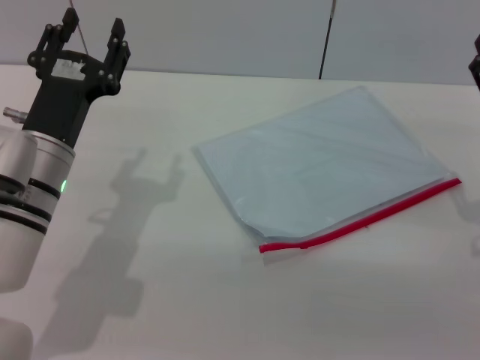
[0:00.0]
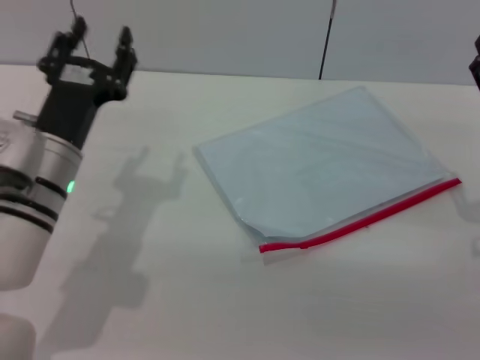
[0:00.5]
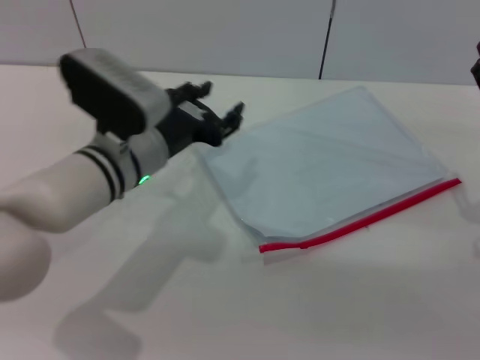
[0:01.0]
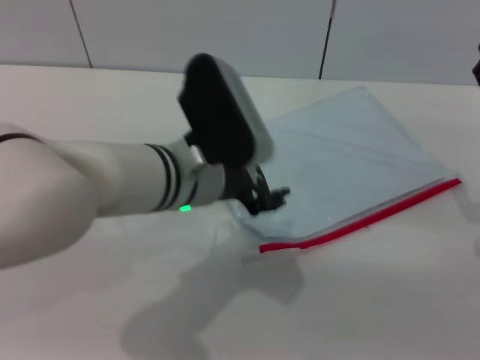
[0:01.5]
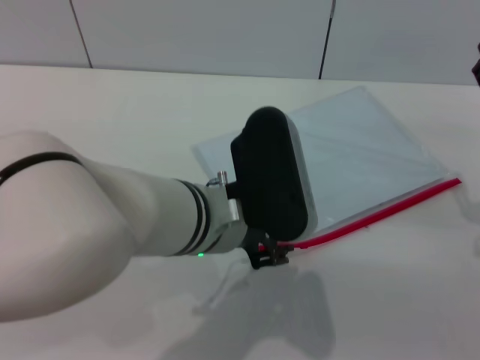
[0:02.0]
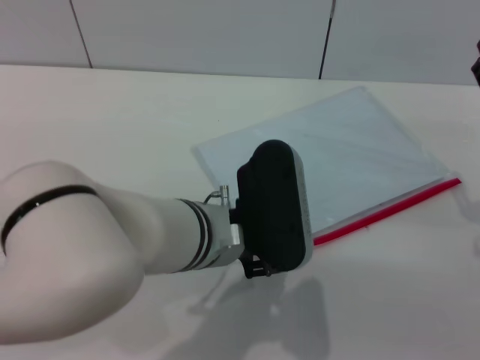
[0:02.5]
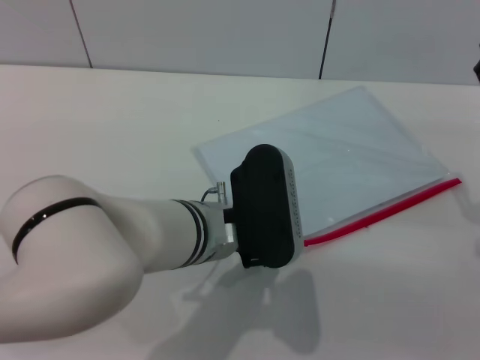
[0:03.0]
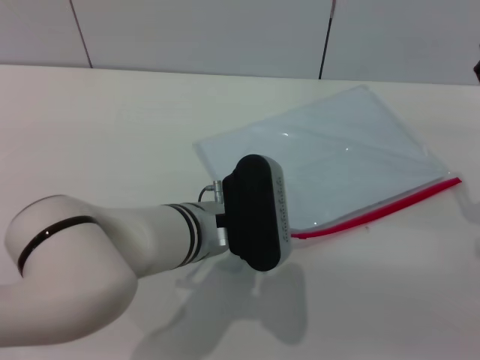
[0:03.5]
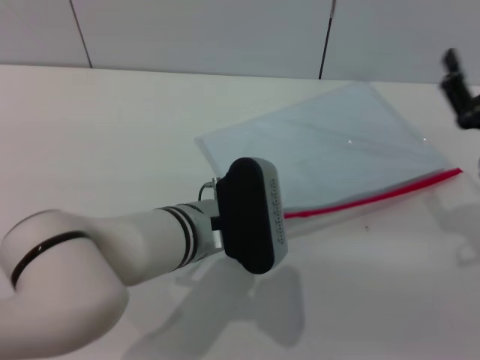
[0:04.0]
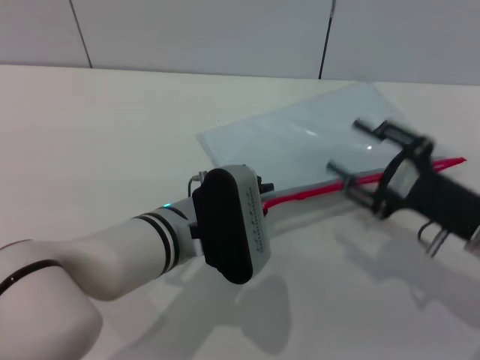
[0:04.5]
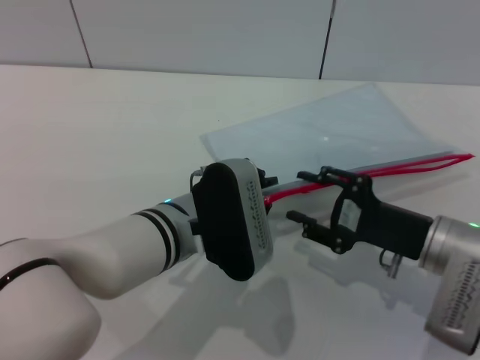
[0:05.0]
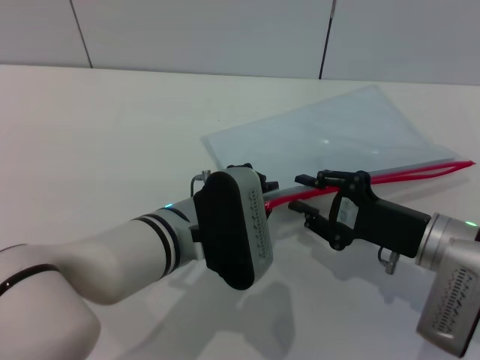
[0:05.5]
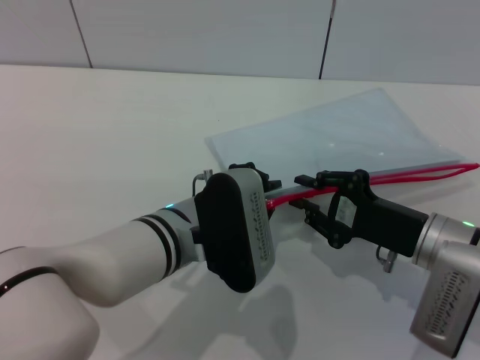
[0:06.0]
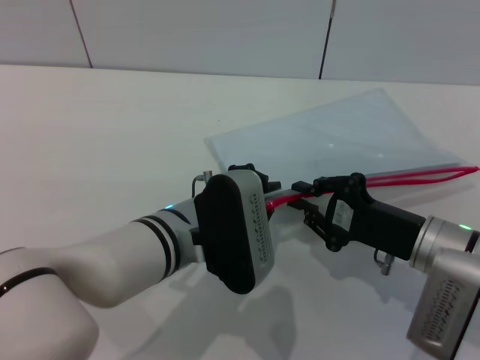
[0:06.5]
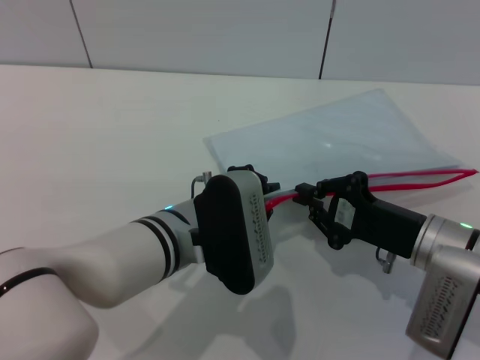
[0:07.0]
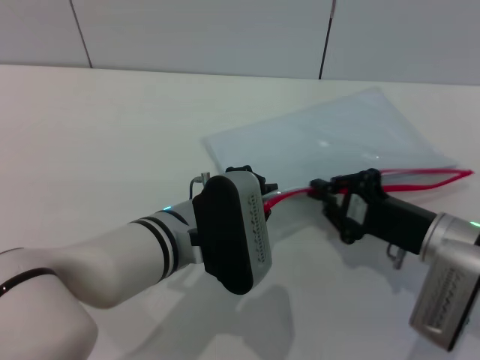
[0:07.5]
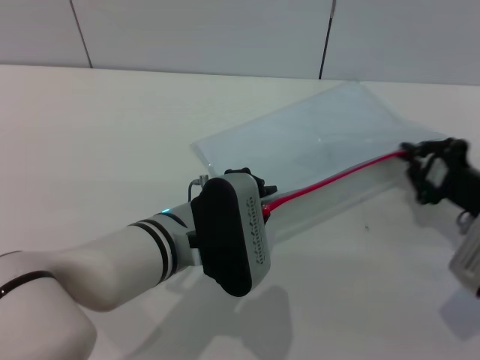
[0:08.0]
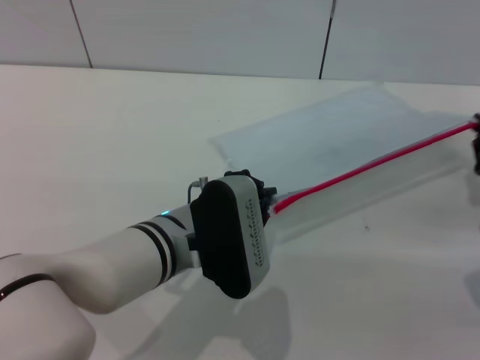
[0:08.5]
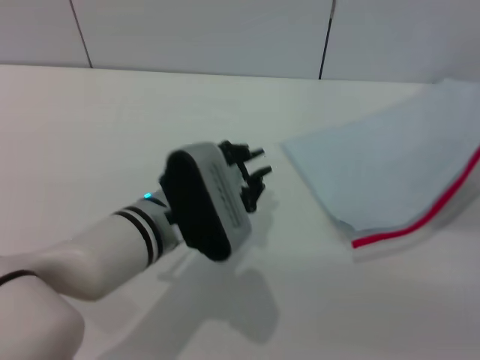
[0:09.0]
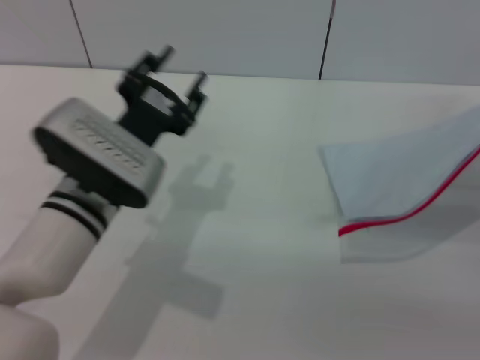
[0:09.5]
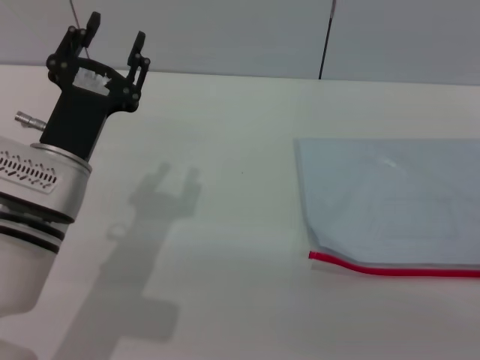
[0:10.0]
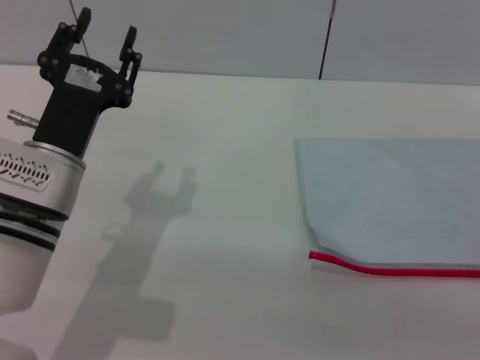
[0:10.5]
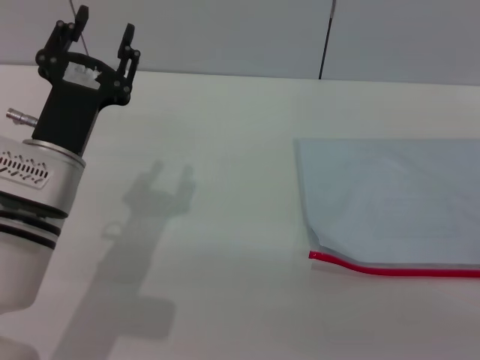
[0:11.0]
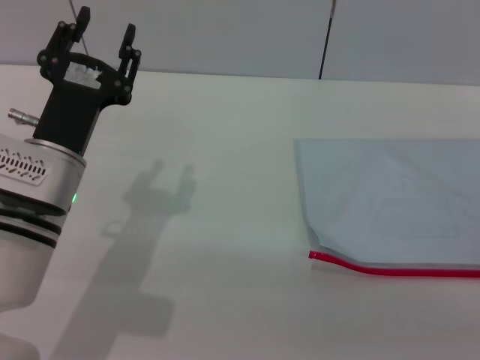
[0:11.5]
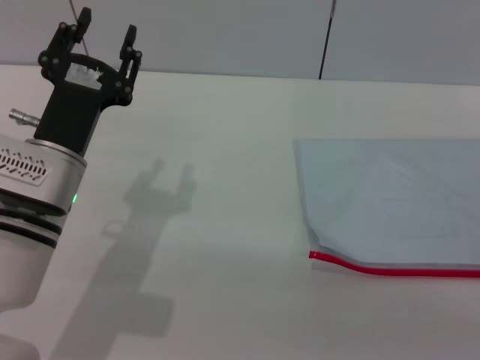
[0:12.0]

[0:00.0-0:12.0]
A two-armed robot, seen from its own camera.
Step, 0:00.0 to 0:04.0: Pick up the transparent plastic bag with the left gripper.
Step, 0:05.0 to 0:09.5: Pulling up the zipper on the transparent plastic bag with the right gripper to close it.
Step, 0:10.5 to 0:11.0: Place the transparent plastic bag.
0:00.0 to 0:02.0: The left gripper moves to the right and upward, roughly 15 cm.
0:02.0 to 0:04.0: The left gripper shifts about 5 cm downward, and closes its fingers.
0:04.0 to 0:06.0: The right gripper shifts roughly 5 cm to the left, and closes its fingers.
0:06.0 to 0:08.0: The right gripper is displaced to the right by roughly 10 cm.
0:08.0 to 0:10.0: The right gripper travels backward and upward by some 10 cm, and opens its fingers. Meanwhile the left gripper moves to the left, some 10 cm, and opens its fingers.
0:10.0 to 0:12.0: The two grippers keep their place.

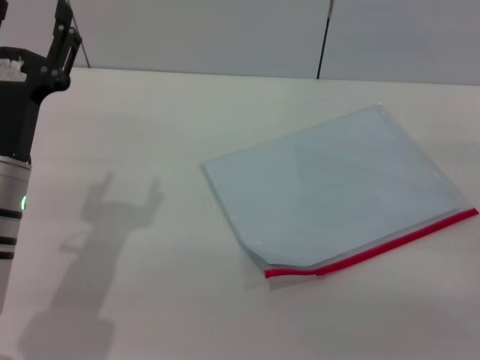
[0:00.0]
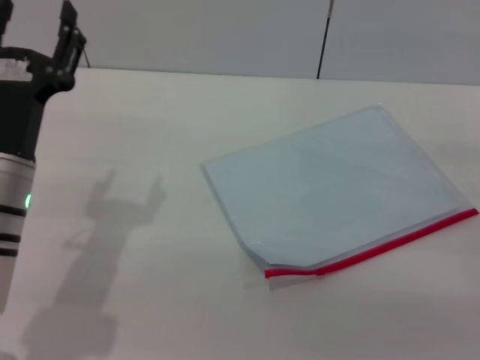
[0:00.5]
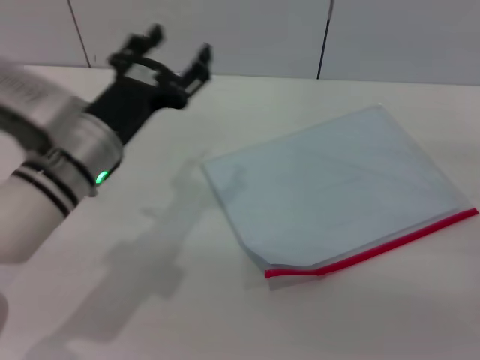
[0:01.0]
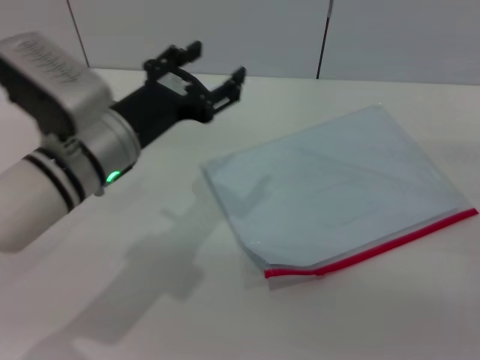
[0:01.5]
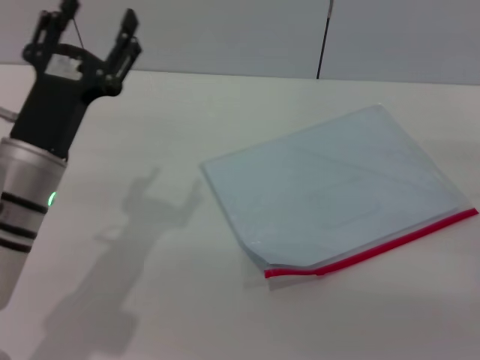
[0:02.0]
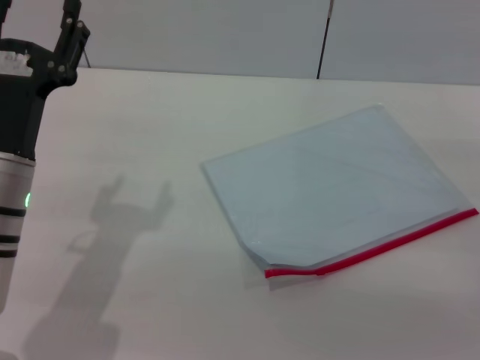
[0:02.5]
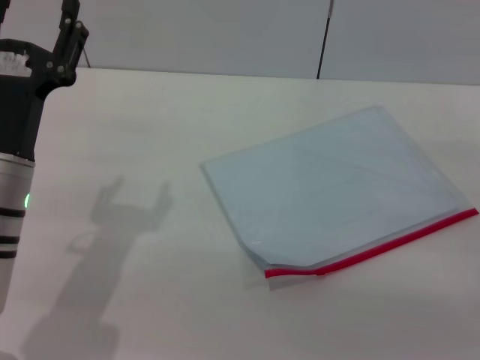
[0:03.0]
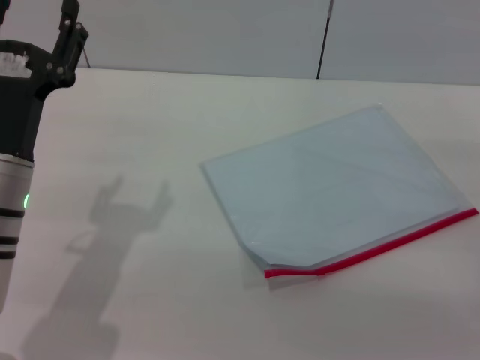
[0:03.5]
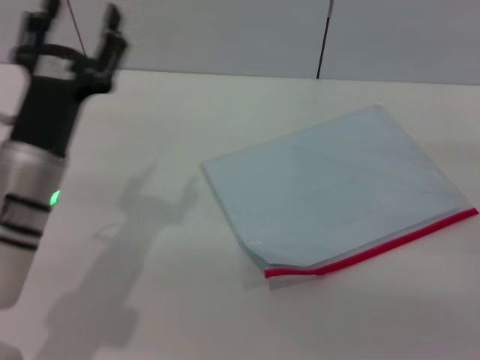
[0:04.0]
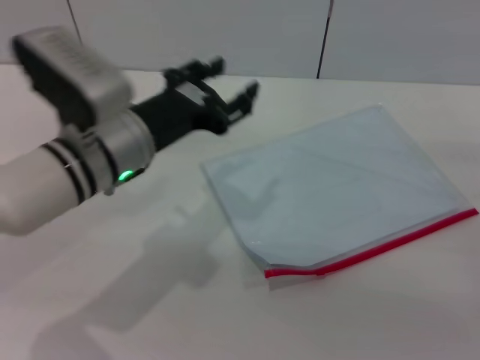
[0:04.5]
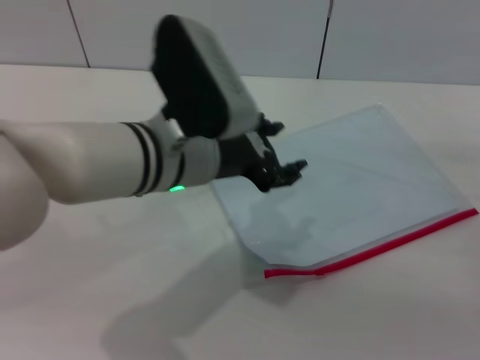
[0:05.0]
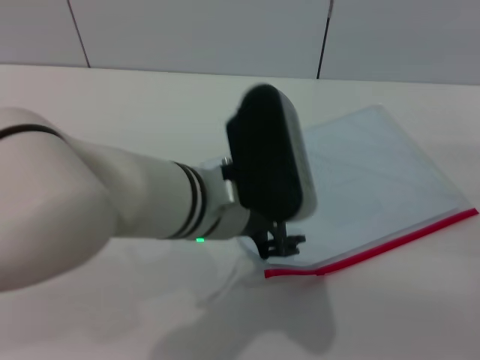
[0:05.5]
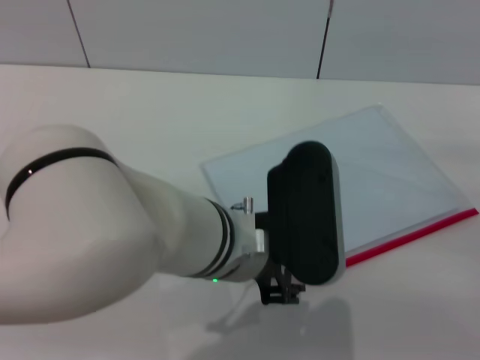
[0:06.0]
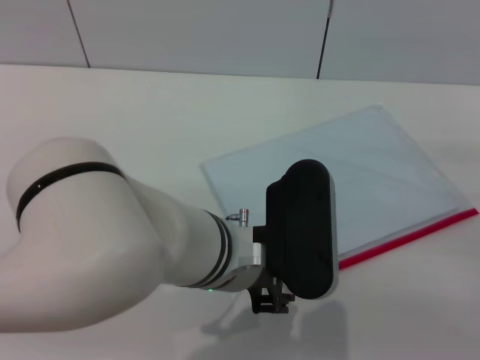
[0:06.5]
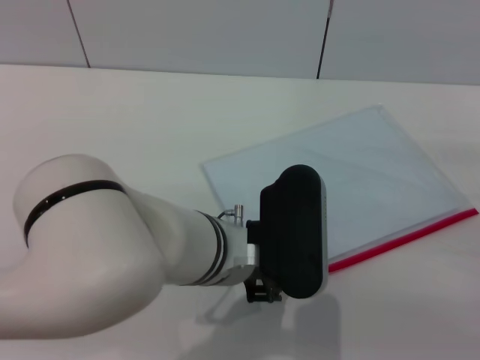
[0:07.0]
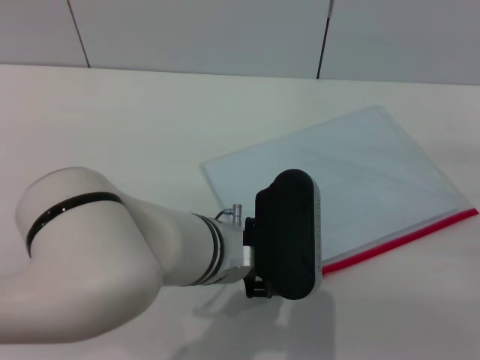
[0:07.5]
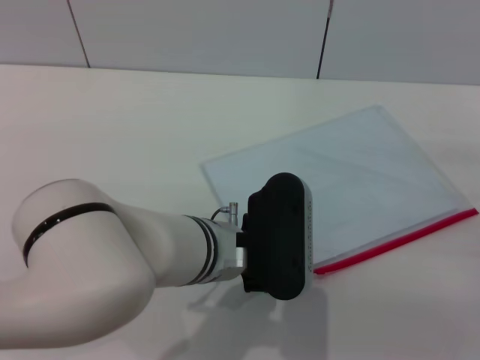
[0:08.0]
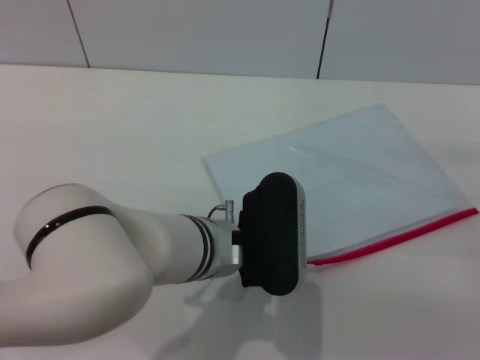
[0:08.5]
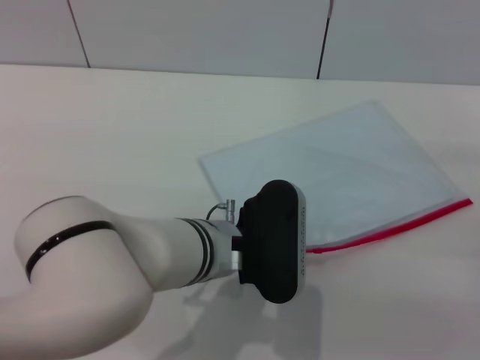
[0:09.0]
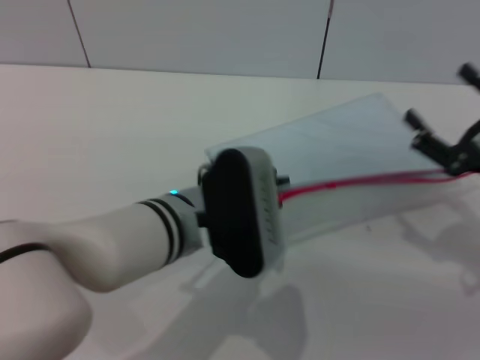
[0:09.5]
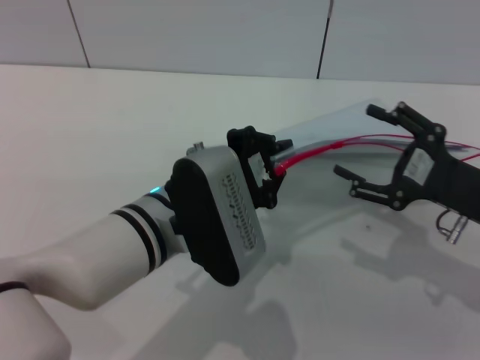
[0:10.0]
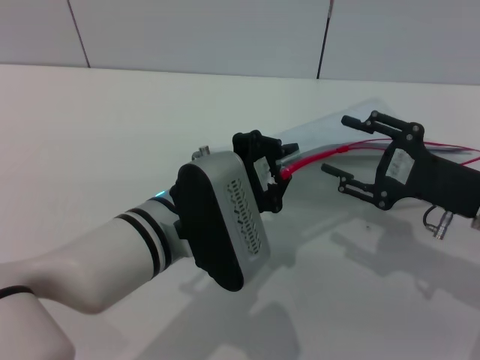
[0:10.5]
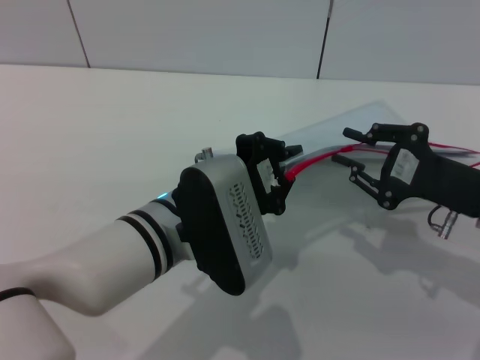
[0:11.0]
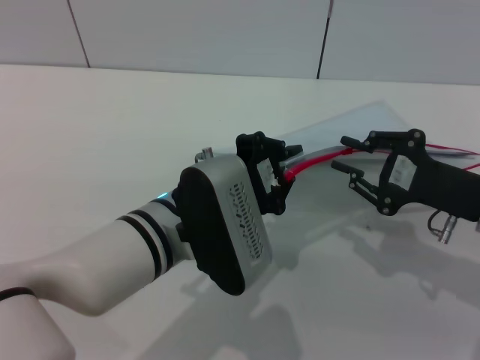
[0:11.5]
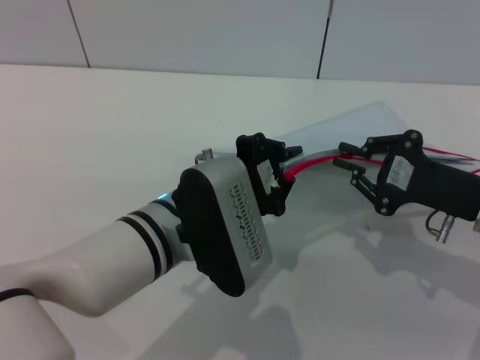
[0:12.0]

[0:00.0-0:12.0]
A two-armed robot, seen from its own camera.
Step, 0:00.0 to 0:09.5: Pick up the transparent plastic bag with the left gripper.
0:02.0 to 0:04.0: The grippers make only small movements.
0:04.0 to 0:06.0: The left gripper goes roughly 15 cm to the right.
0:06.0 to 0:08.0: The left gripper shifts by some 5 cm.
0:08.0 to 0:10.0: The left gripper closes; the right gripper shifts roughly 5 cm to the left.
0:10.0 to 0:12.0: The right gripper closes.

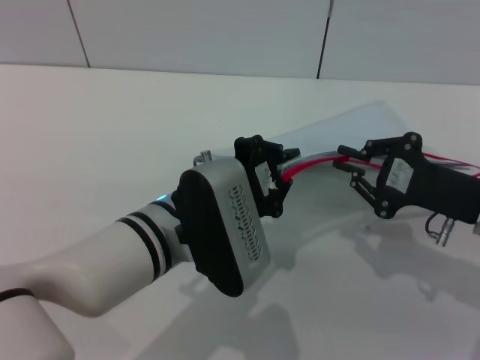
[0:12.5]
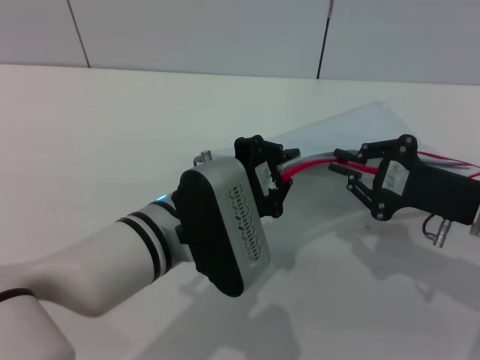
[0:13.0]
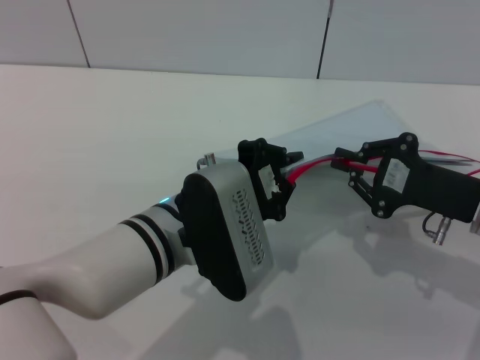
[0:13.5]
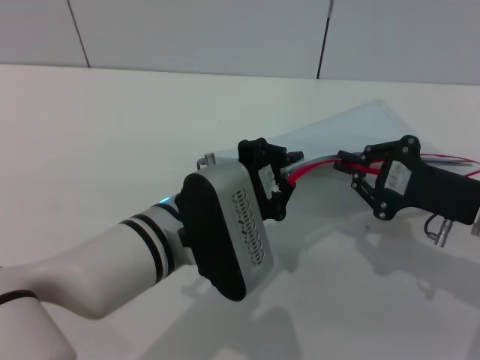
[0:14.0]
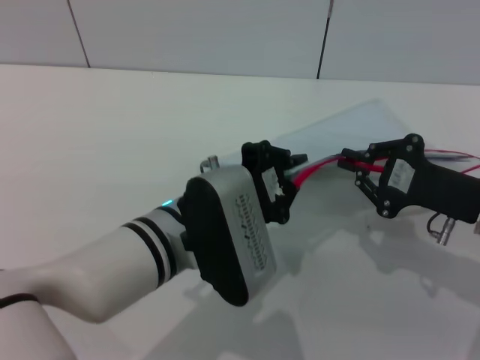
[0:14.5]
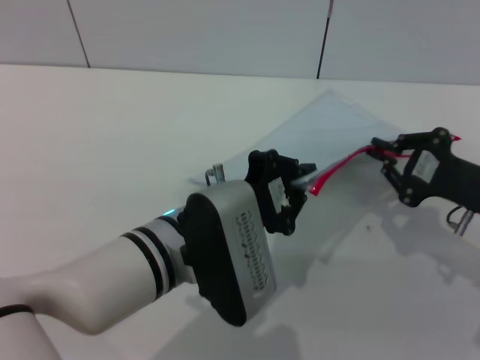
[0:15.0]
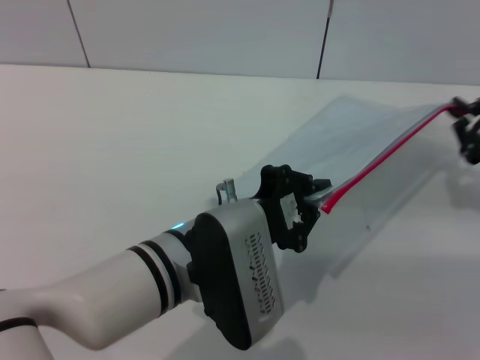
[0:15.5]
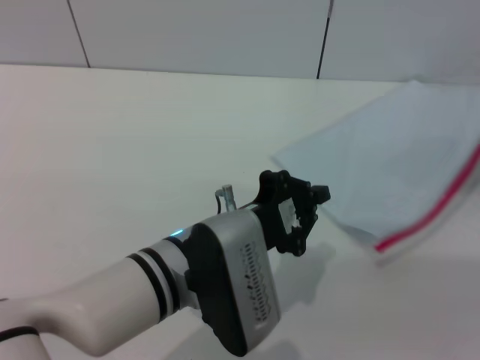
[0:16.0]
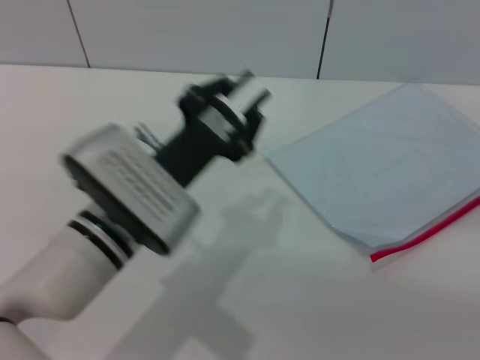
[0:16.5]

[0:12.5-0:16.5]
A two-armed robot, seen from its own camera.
Step, 0:12.5 to 0:15.5: Pulling up the zipper on the transparent plastic bag with the right gripper to close it.
0:12.5 to 0:14.5: Neither gripper changes place.
0:14.5 to 0:16.5: The right gripper moves to the right, roughly 10 cm.
